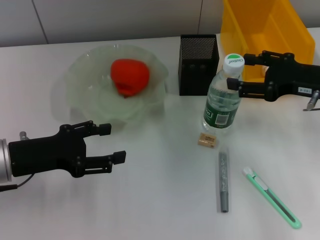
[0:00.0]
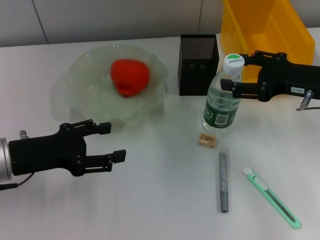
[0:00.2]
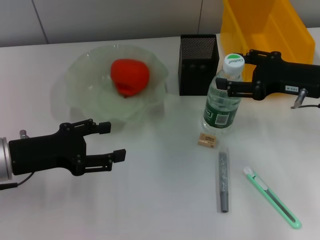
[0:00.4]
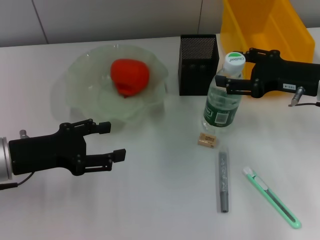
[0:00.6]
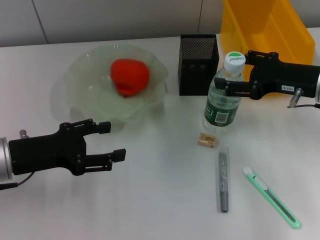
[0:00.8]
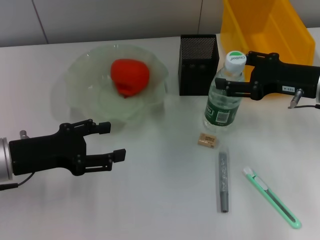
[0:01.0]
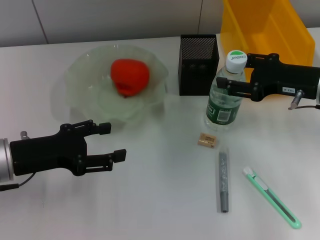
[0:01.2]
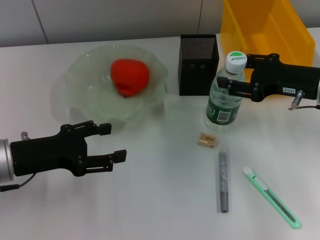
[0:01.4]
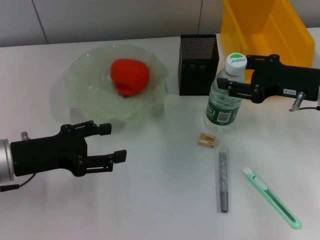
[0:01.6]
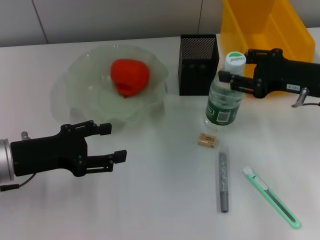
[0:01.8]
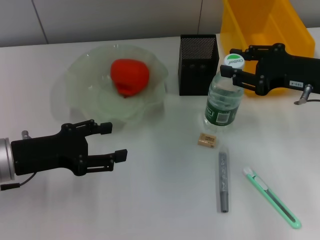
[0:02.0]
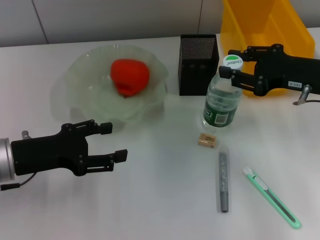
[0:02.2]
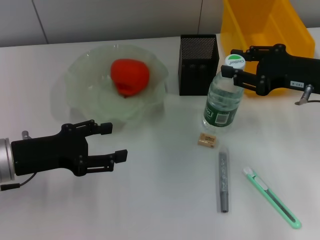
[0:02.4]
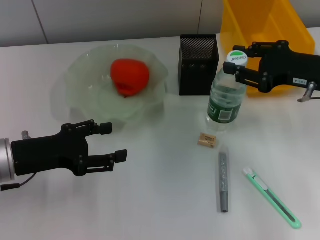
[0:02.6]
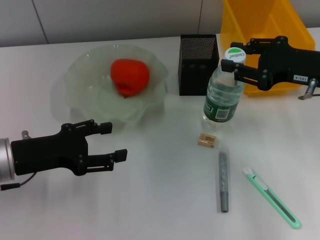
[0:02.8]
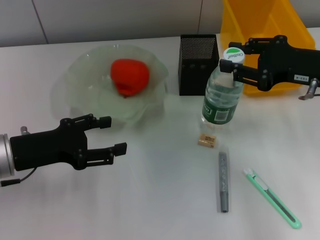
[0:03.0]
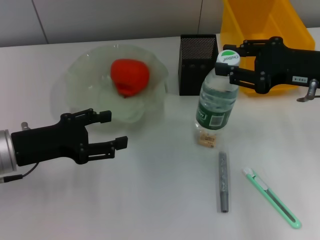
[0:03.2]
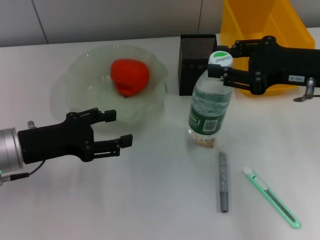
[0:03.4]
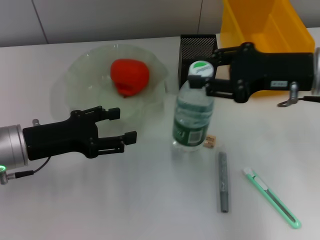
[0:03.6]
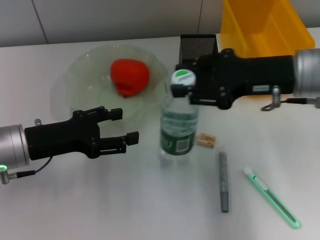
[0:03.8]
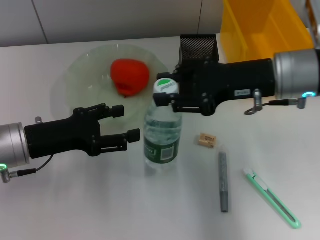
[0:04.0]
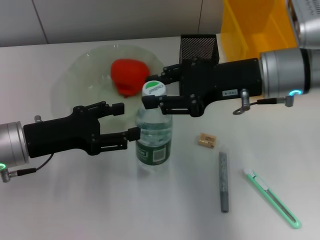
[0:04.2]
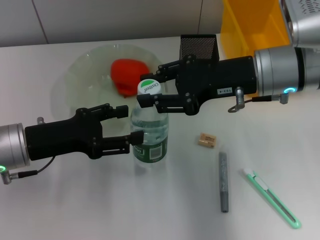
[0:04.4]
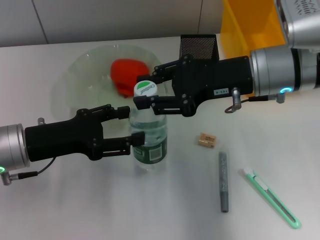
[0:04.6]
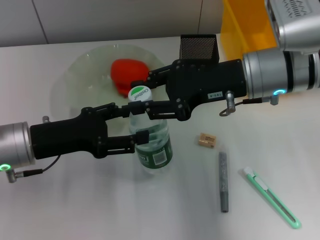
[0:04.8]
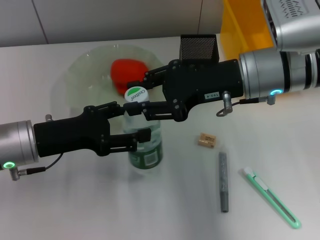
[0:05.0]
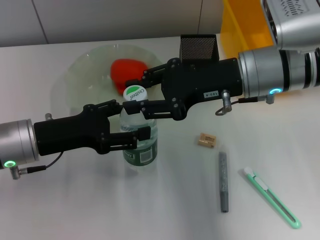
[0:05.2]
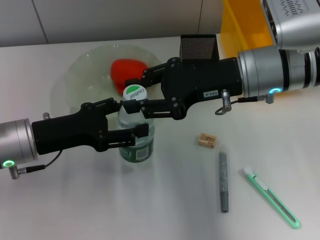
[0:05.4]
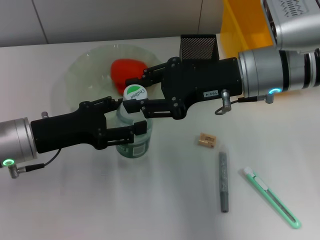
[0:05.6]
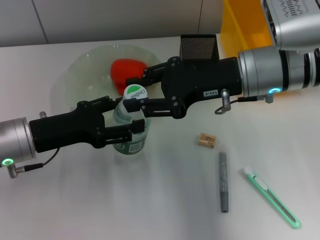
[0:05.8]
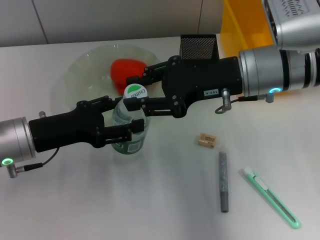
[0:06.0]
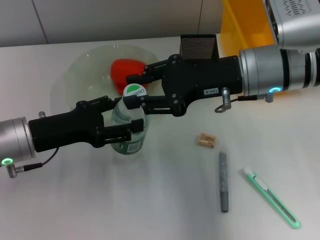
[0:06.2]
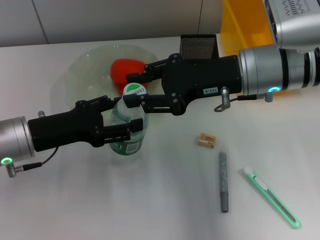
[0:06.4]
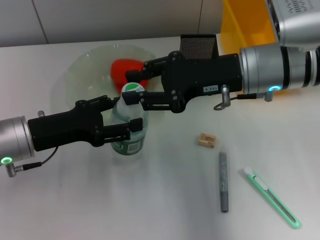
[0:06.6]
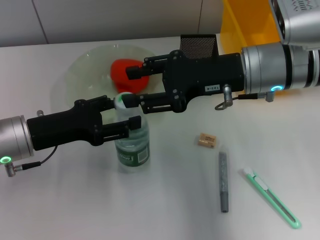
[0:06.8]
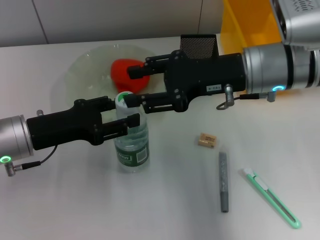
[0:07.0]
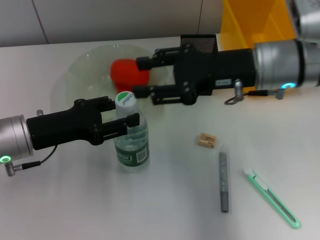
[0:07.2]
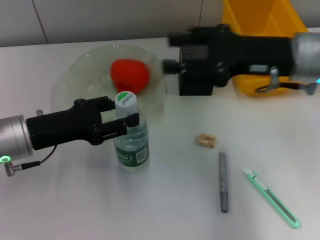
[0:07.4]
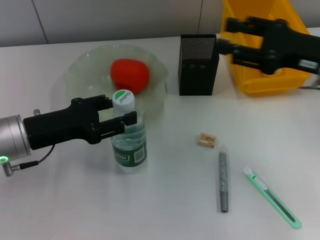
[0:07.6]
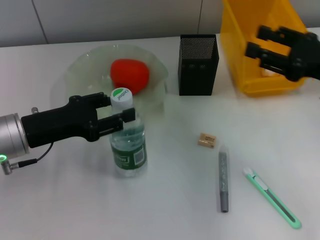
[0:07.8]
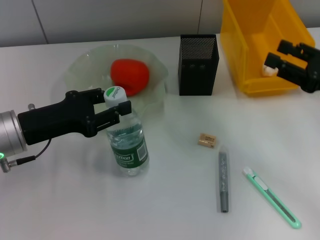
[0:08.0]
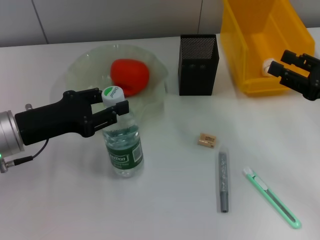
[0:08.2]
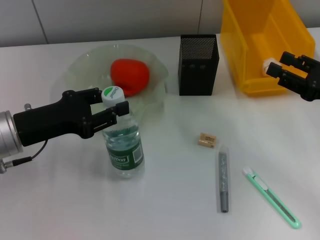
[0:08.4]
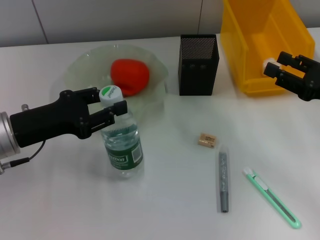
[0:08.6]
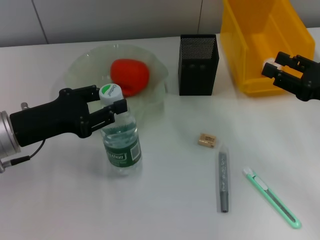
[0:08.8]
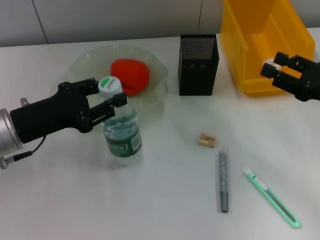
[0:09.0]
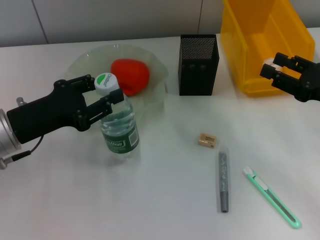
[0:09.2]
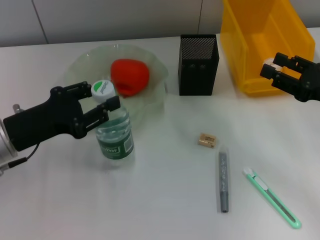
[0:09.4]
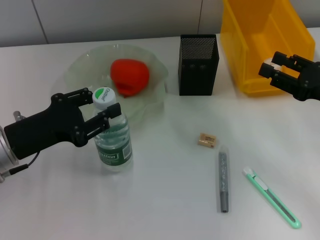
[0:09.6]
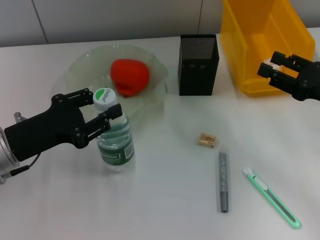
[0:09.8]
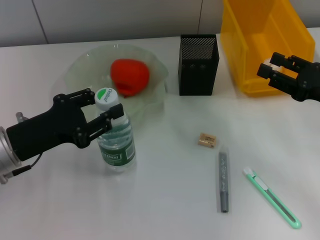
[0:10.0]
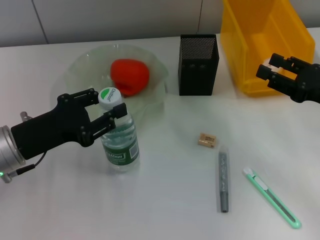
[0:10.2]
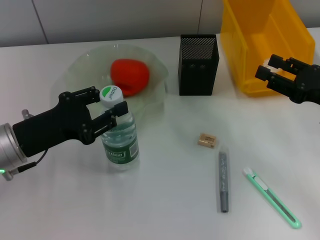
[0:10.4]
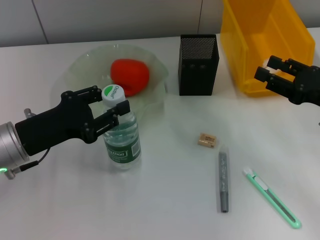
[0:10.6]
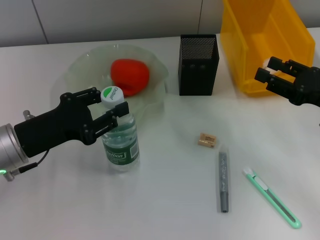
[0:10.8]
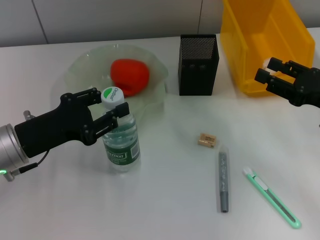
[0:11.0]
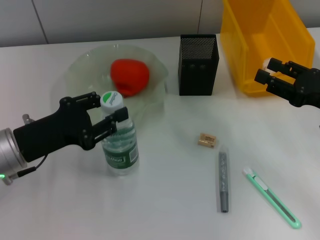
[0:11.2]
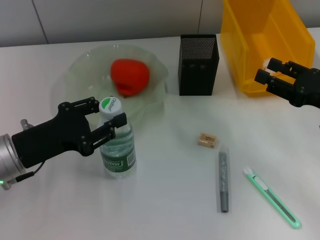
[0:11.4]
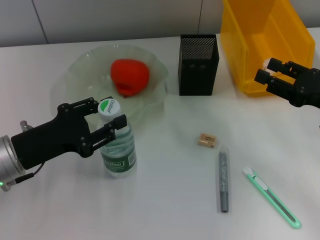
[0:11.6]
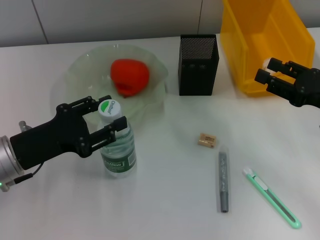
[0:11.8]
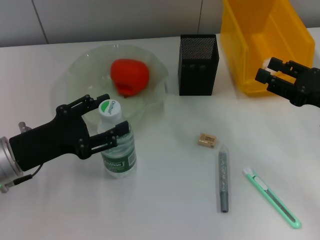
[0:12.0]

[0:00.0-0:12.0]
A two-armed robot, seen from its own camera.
Step, 0:00.0 to 0:06.2: Pass the water bottle from the right hand to the left hand.
0:00.0 to 0:03.0: The grippers move only a little.
0:03.0 to 0:04.4: The right gripper is displaced to the left by approximately 10 cm.
0:04.4 to 0:06.0: The grippers make only small movements.
0:06.0 to 0:07.6: The right gripper goes some 10 cm to the right; the left gripper closes up.
0:07.6 to 0:09.0: The right gripper is displaced downward and to the right by about 10 cm.
0:09.0 to 0:12.0: There are only small adjustments of the grippers.

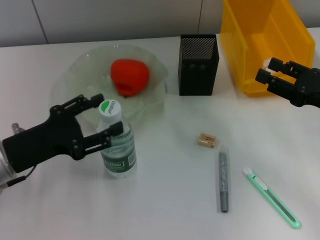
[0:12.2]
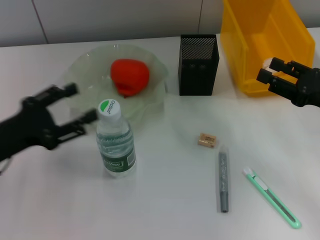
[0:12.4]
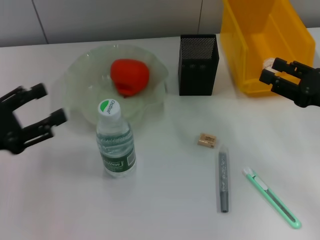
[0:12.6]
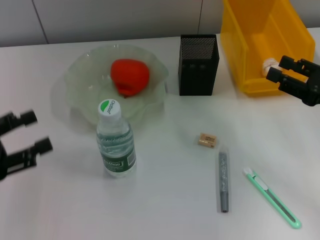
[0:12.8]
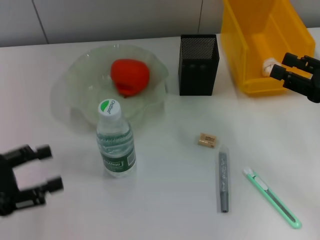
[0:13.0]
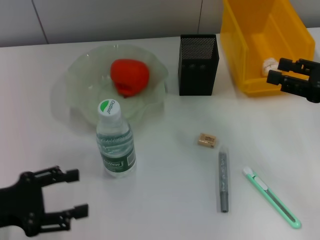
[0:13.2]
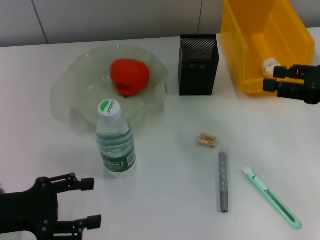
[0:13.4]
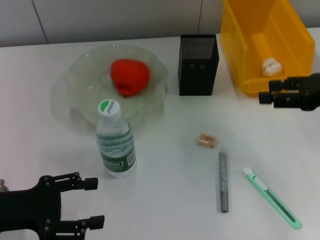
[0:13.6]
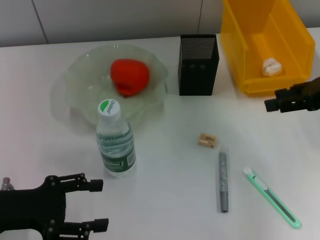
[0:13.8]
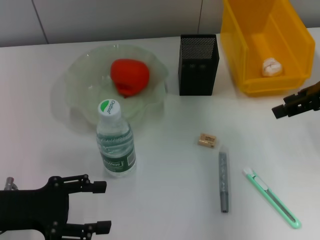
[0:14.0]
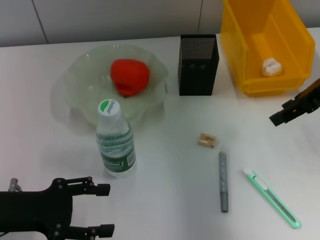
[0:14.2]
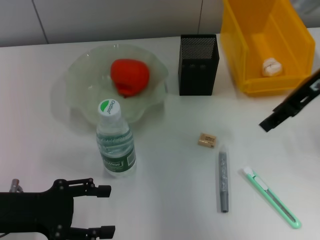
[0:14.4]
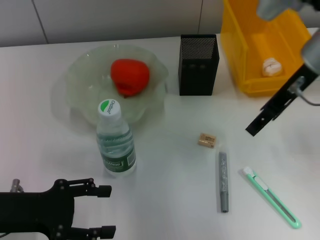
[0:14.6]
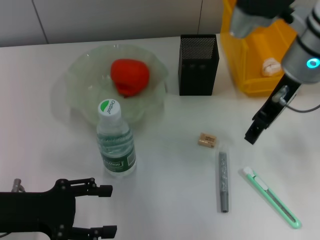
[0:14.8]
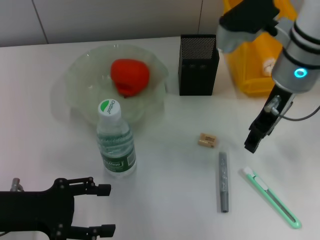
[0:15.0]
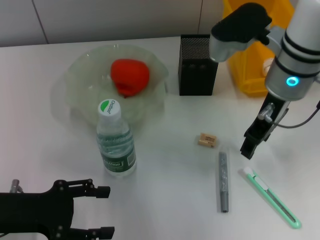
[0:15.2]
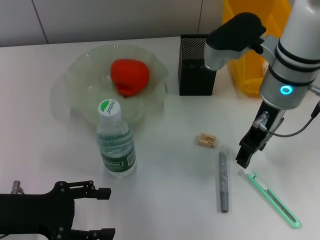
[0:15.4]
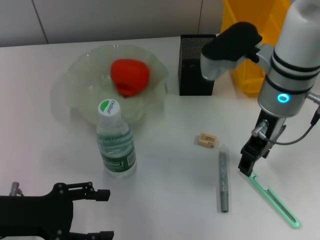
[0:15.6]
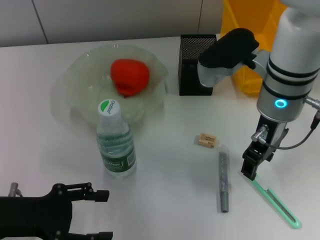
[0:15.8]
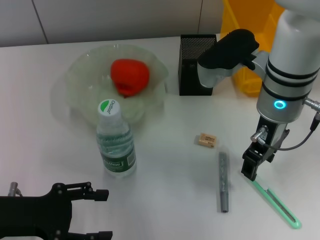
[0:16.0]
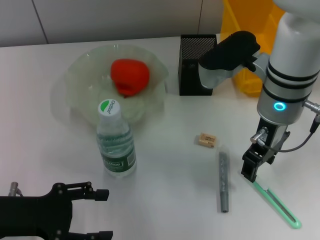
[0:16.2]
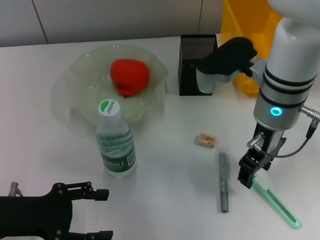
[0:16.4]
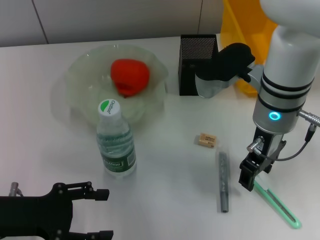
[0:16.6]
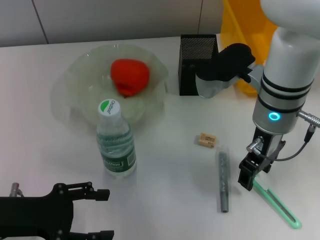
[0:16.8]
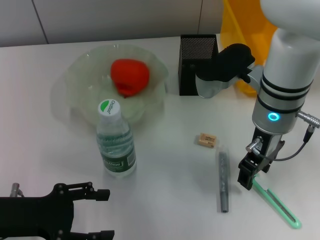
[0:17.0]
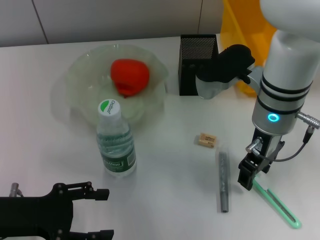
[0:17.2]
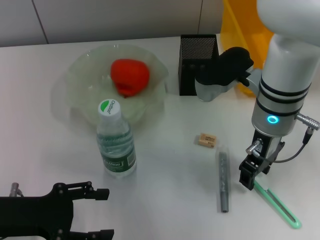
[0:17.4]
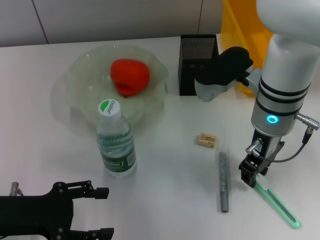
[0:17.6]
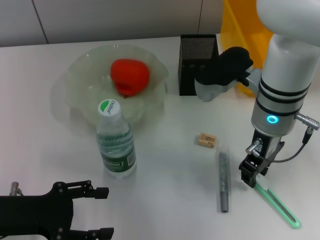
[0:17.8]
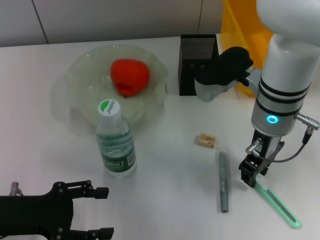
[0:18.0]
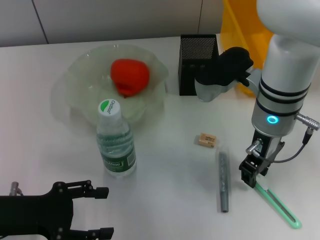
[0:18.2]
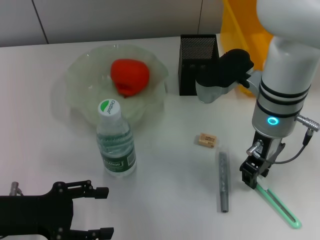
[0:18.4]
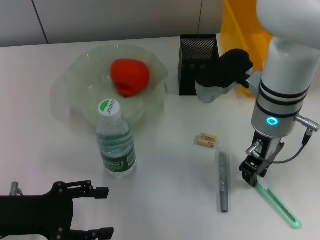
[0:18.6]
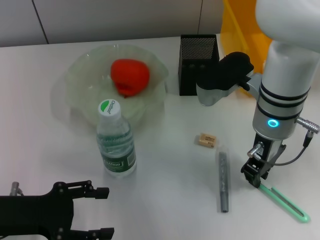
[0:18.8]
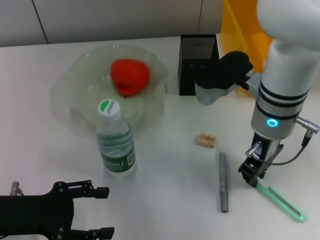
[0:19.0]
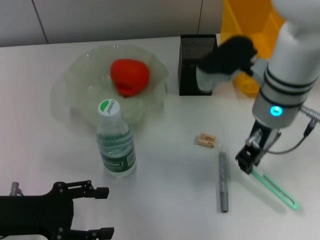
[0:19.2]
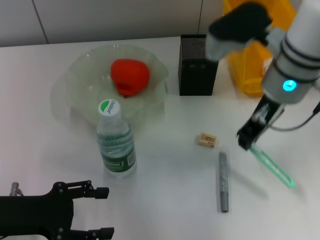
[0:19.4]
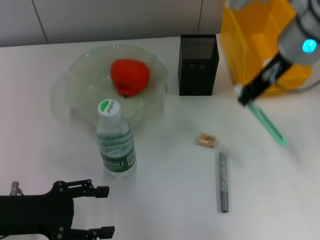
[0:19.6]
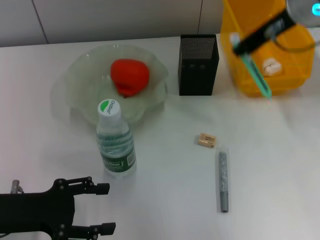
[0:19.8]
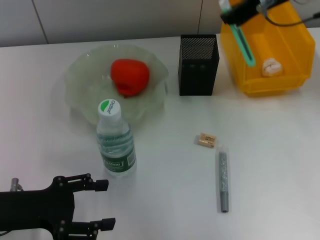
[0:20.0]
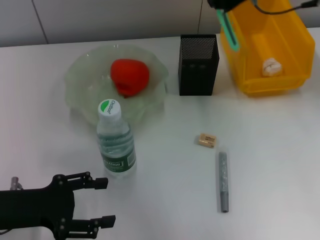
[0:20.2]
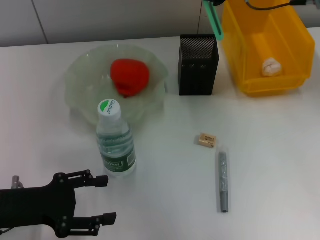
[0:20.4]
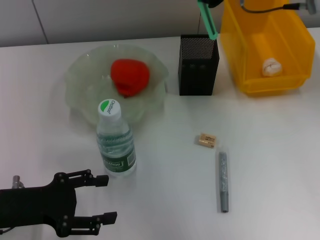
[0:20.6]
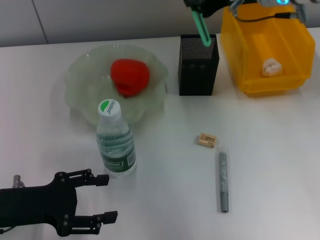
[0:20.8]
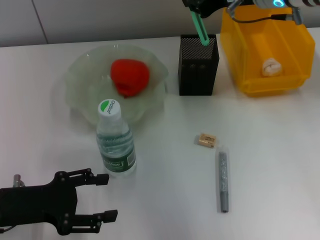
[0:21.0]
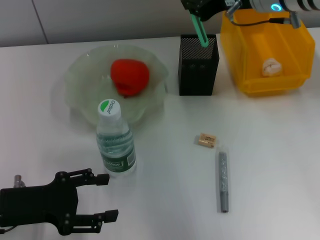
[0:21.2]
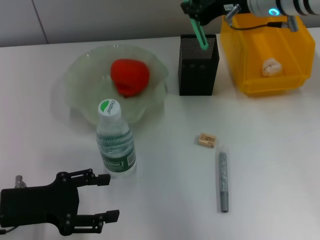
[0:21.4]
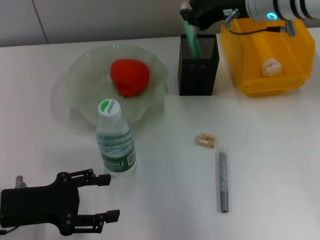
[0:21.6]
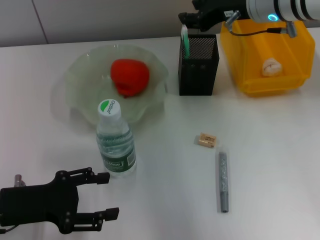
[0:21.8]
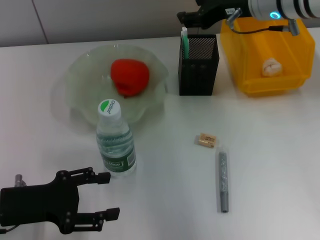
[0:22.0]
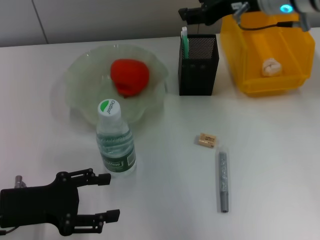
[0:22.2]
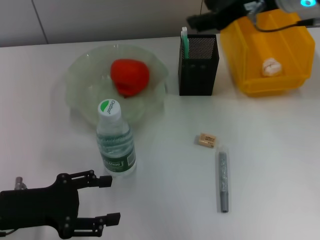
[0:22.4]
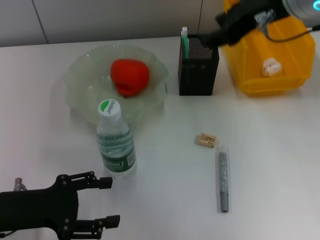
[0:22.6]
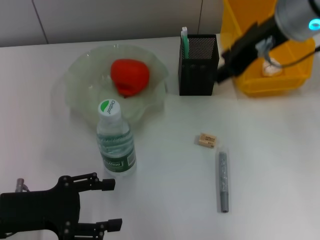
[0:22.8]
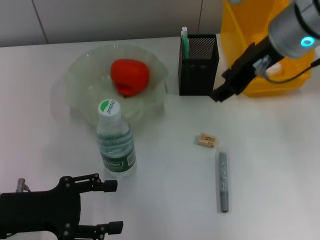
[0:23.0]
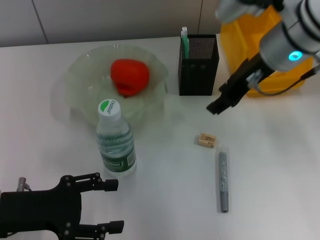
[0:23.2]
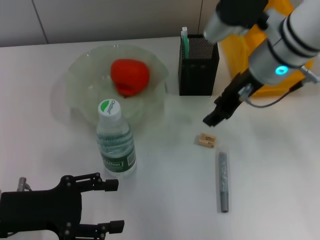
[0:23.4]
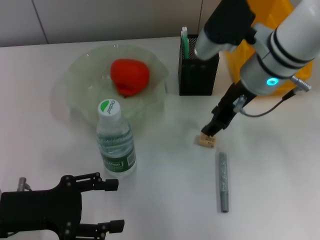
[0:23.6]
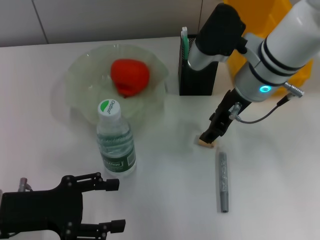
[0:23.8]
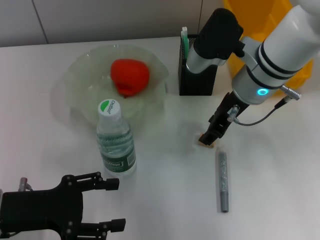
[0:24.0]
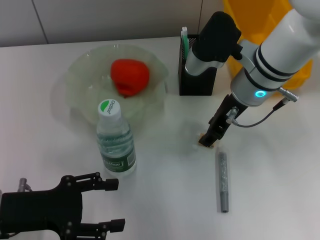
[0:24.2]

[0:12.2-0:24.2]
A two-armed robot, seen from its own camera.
Step, 0:12.2 to 0:18.6: Grab the blue utility knife with the right hand.
Step, 0:18.8 to 0:21.8: Place the blue utility knife into the pen holder with the right hand.
0:12.2 to 0:13.8: The right gripper travels upward by roughly 10 cm.
0:13.8 to 0:15.2: The right gripper travels to the left by approximately 15 cm.
0:15.2 to 0:16.6: There are only small adjustments of the grippers.
0:16.6 to 0:18.2: The right gripper closes.
0:18.2 to 0:19.8: The right gripper goes some 15 cm upward.
0:19.8 to 0:21.2: The right gripper changes place by about 5 cm.
0:21.2 to 0:22.6: The right gripper is displaced backward by approximately 5 cm, and opens up.
0:22.6 to 0:24.2: The right gripper moves downward, some 15 cm.
